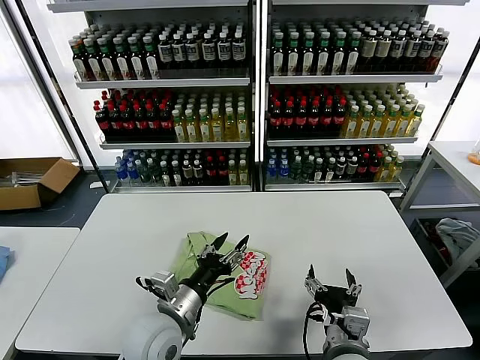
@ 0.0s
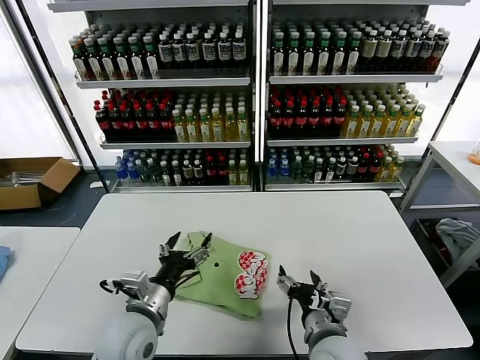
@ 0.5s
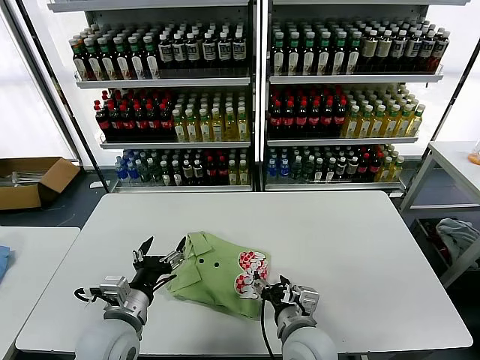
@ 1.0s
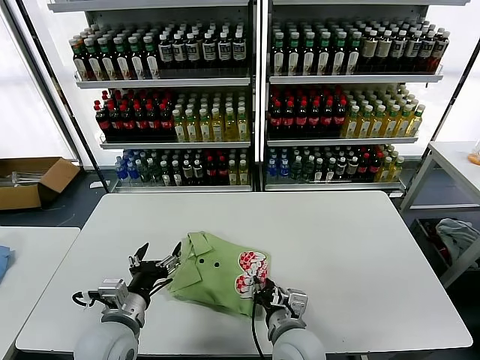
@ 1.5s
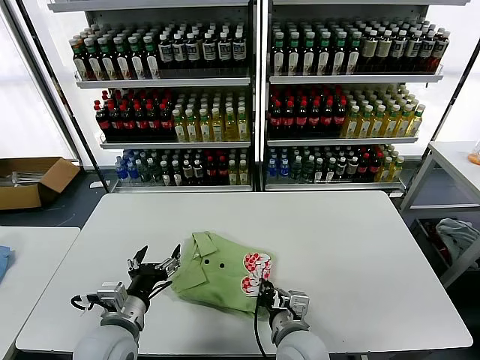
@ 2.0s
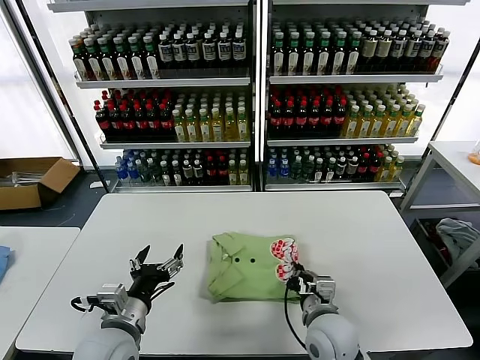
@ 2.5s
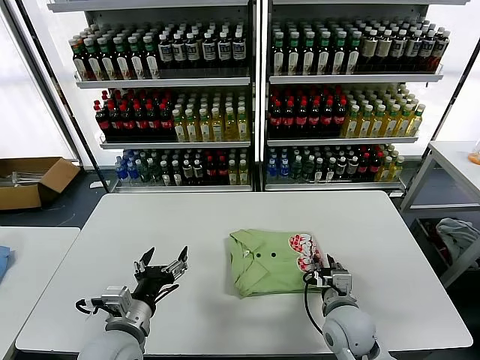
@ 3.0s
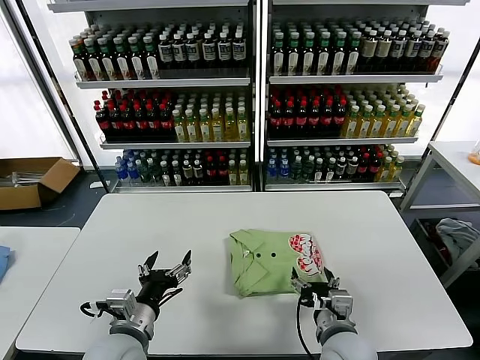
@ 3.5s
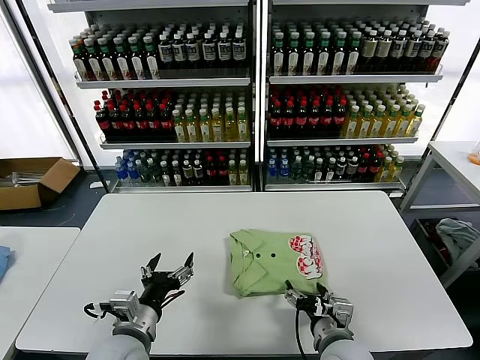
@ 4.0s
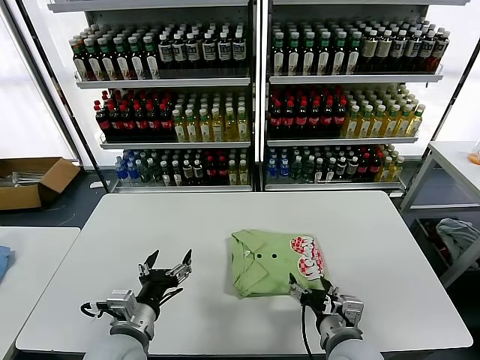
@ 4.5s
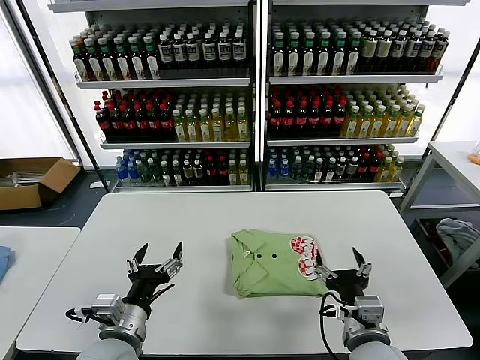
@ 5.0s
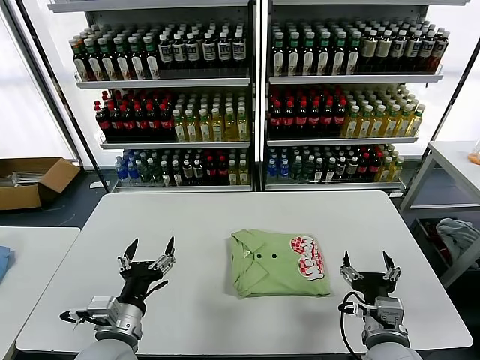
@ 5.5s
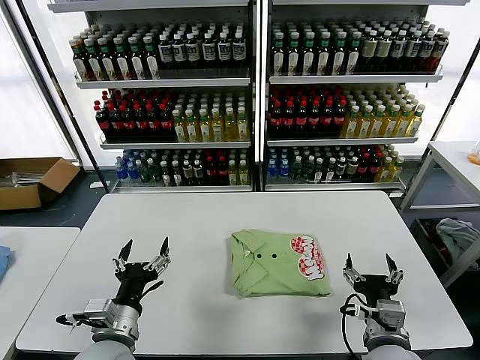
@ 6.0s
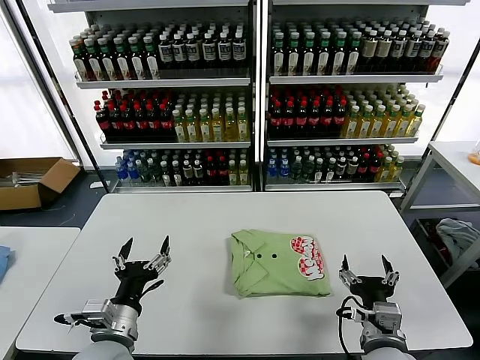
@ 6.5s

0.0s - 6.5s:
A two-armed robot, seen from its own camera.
Task of the whole recording: fold and organize the clothes.
Step, 0.5s - 4.0s: Drag the clothes to the center of the table.
0.0s - 2.0s: The left gripper is displaced to the left by roughly 10 cm, and opens up. The right gripper moves to the left and forward, about 10 cm, and closes.
2.0s - 4.5s: The right gripper goes roughly 10 cm to the right, and opens its fingers.
4.5s - 6.5s: The right gripper moves to the right, approximately 5 cm.

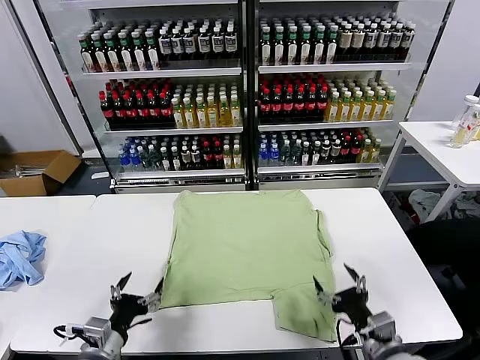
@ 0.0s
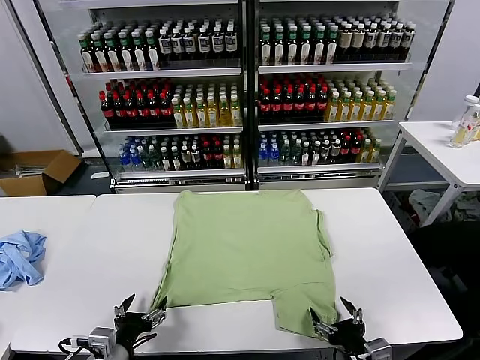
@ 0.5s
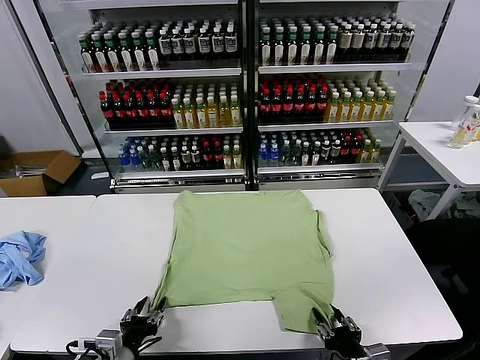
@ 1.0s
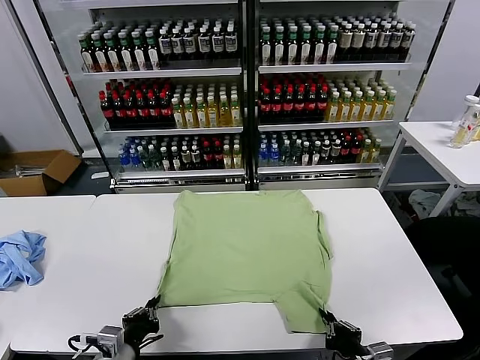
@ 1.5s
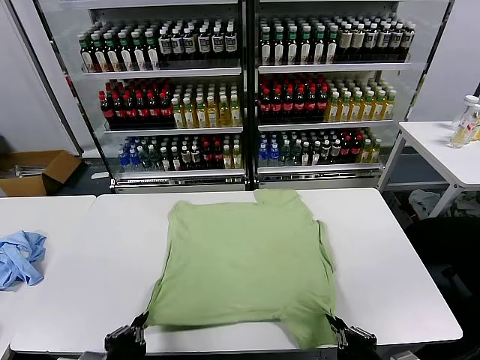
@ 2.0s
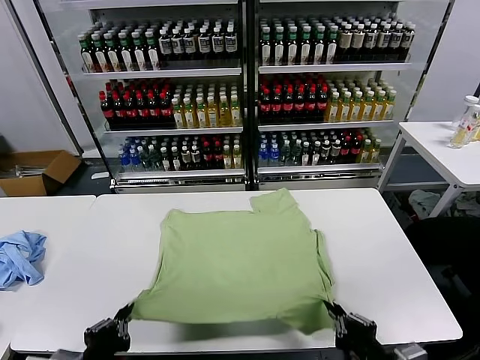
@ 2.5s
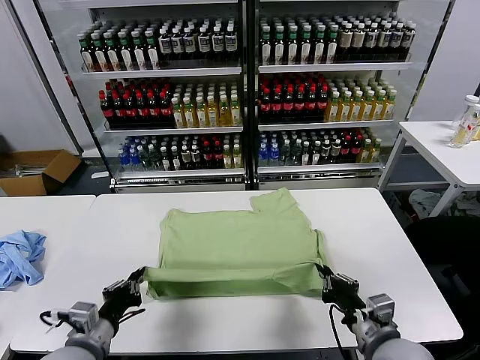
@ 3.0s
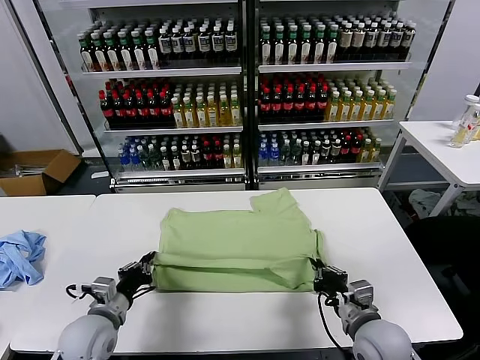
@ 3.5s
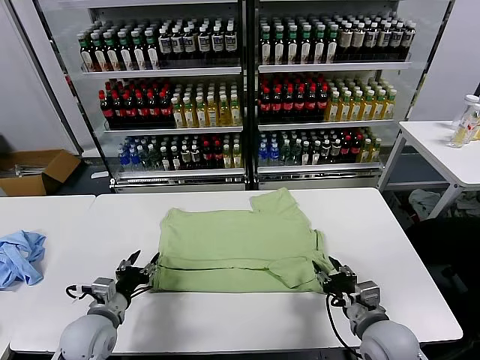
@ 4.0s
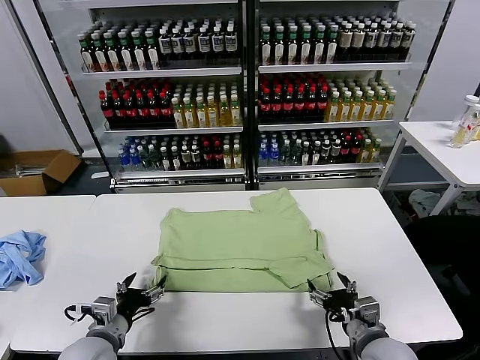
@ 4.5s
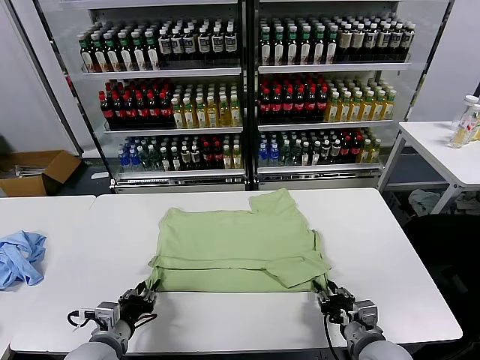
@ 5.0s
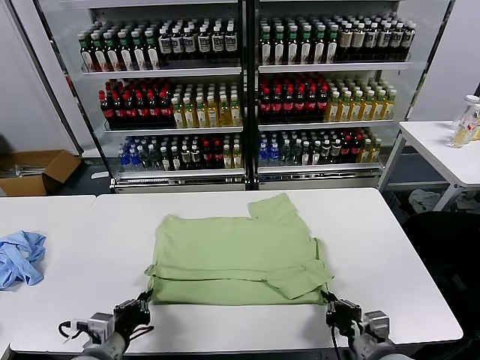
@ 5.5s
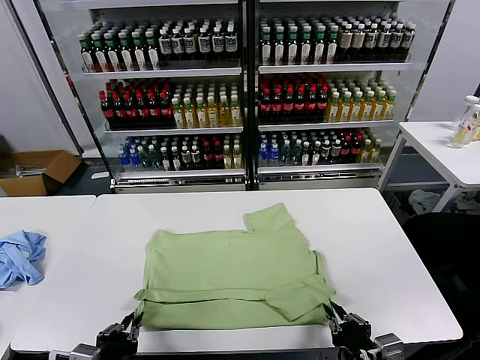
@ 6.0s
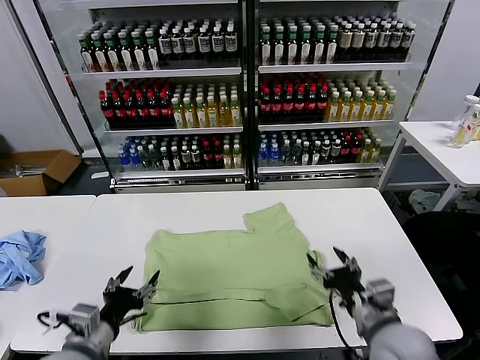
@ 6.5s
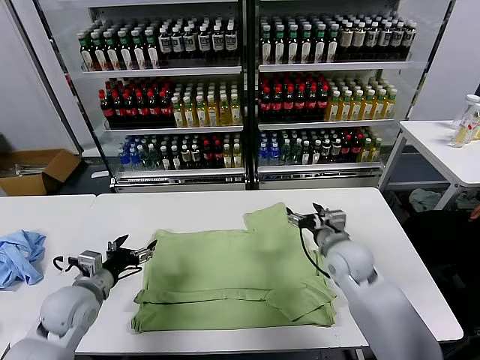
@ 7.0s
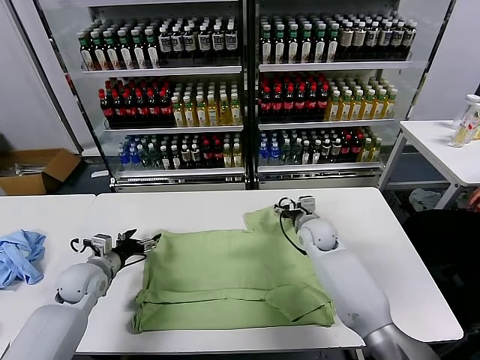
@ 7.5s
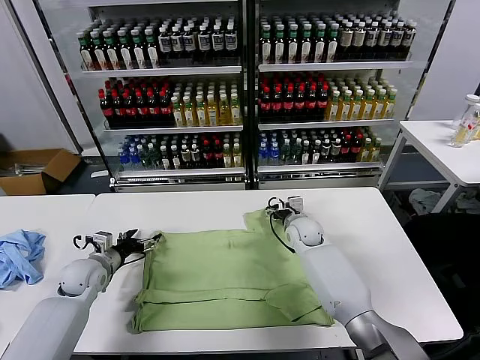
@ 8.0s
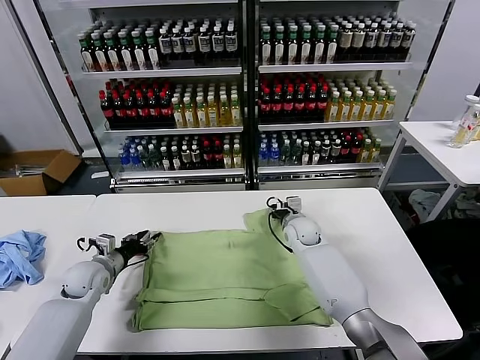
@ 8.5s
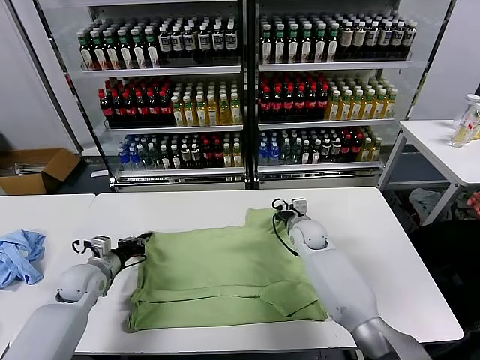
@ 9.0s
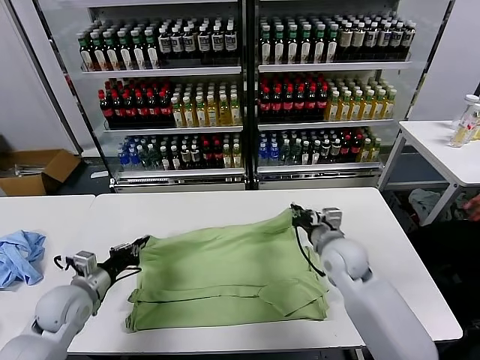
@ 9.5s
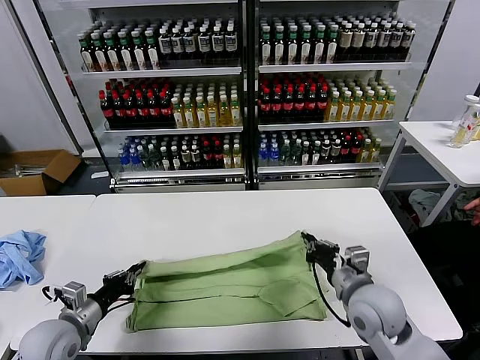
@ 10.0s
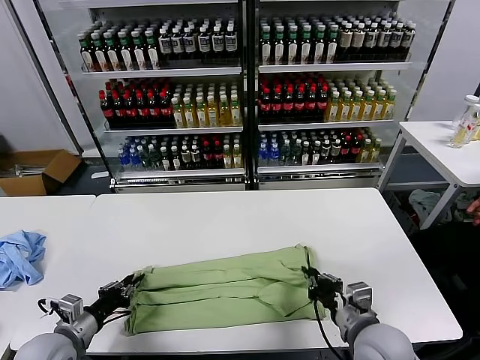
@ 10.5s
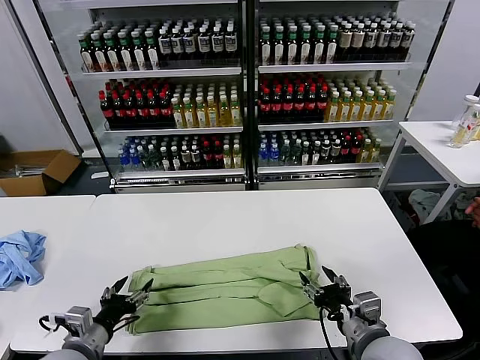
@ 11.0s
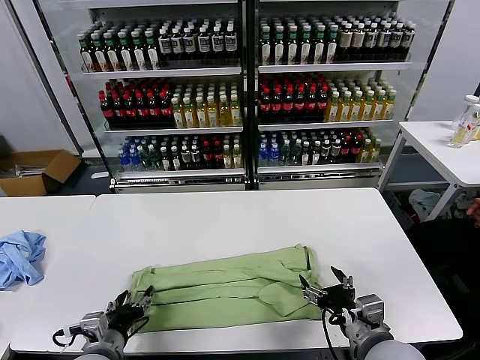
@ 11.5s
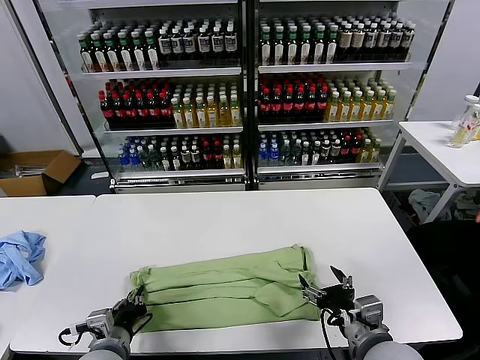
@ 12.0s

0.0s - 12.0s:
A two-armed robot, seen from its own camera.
Task of the whole recording: fold and organize the clothes.
Step, 0.0s - 1.5s: use both grippers simultaneously to clamp the lower edge of the clothing fabric.
Step, 2.0s - 4.0s: use both grippers to drag the lower edge of the fabric forward and fold it over the upper edge.
Step, 4.5s - 6.0s: Drag the clothes downward with both gripper.
Step, 6.5s - 8.5s: use both grippers simultaneously to clamp the upper edge of the clothing fabric.
Step, 9.0s - 10.5s: use both grippers to drag the upper edge of the fabric backward and fold it over the lower edge.
Step, 11.0s - 12.0s: use the left gripper to clamp the left edge of the fabric.
2.0s - 4.0s: The grippers both shift forward by approximately 15 cm. The left gripper opens, while the right gripper opens up.
4.0s - 6.0s: The grippers both shift backward by approximately 10 cm. The right gripper closes its fingers. The left gripper closes.
6.0s - 8.0s: The grippers both shift forward by approximately 35 cm. The left gripper opens up; the right gripper opens its fingers.
8.0s - 10.0s: The right gripper shifts roughly 25 cm backward, and closes its fingers, while the left gripper heads backward, covering roughly 15 cm, and closes its fingers.
10.0s - 12.0s: The left gripper shifts about 10 cm to the right, and opens and closes again; the right gripper travels backward by roughly 10 cm, and opens up.

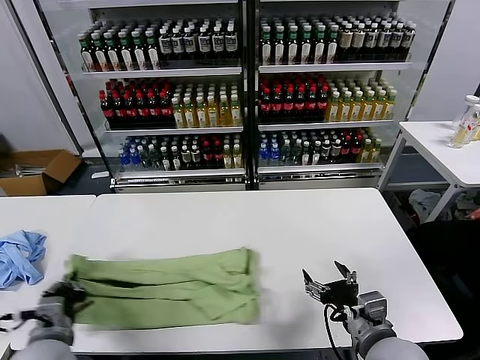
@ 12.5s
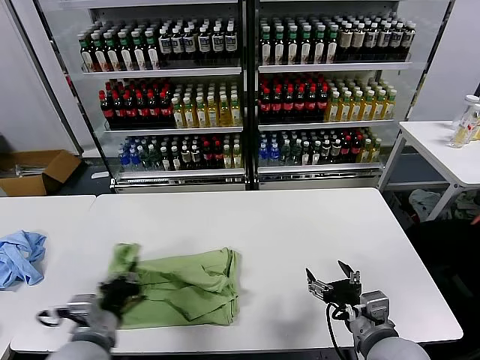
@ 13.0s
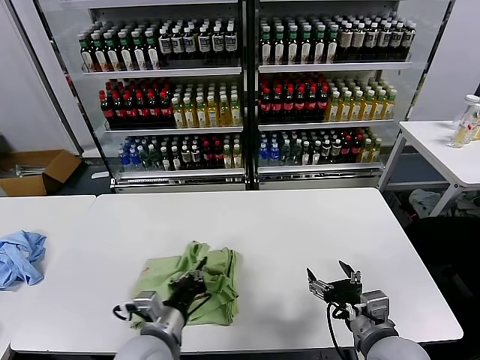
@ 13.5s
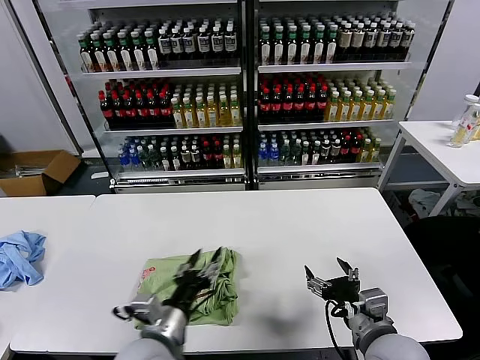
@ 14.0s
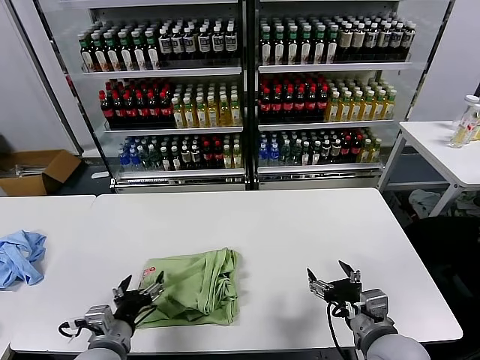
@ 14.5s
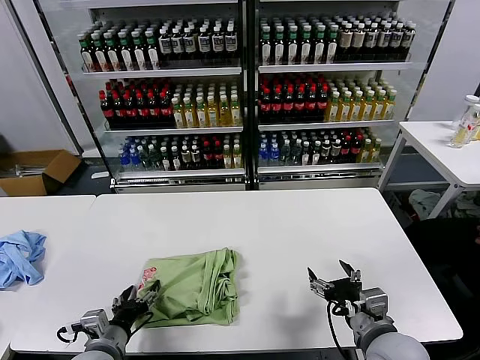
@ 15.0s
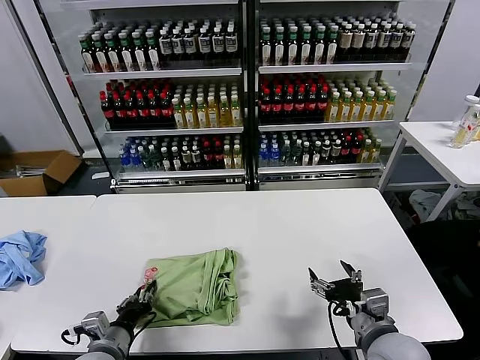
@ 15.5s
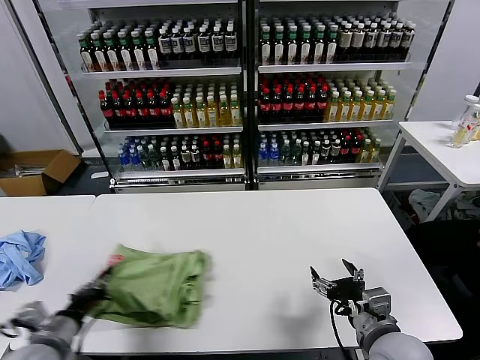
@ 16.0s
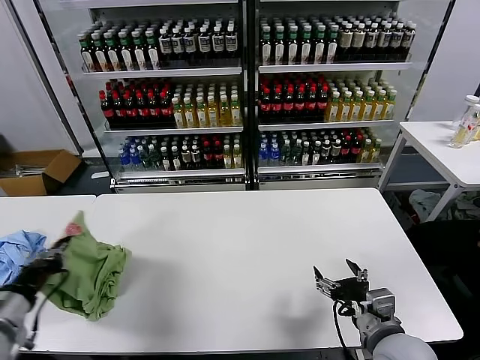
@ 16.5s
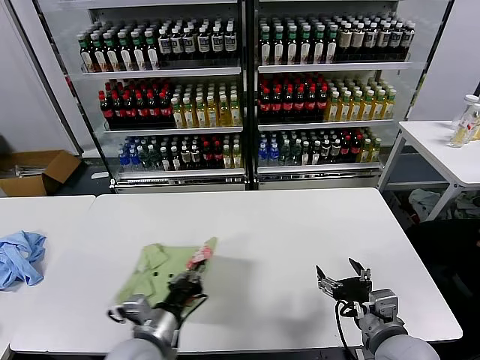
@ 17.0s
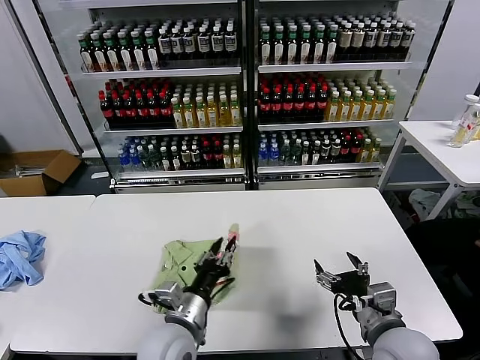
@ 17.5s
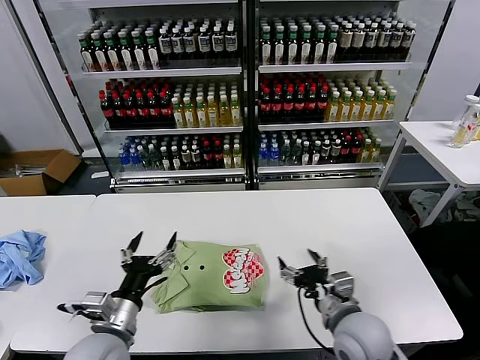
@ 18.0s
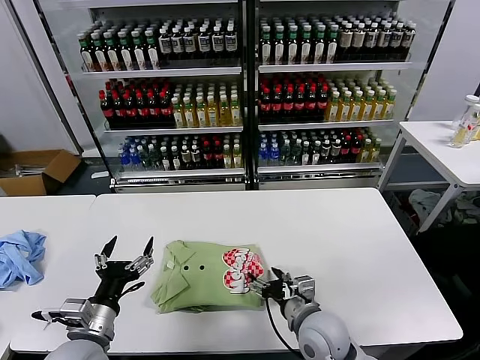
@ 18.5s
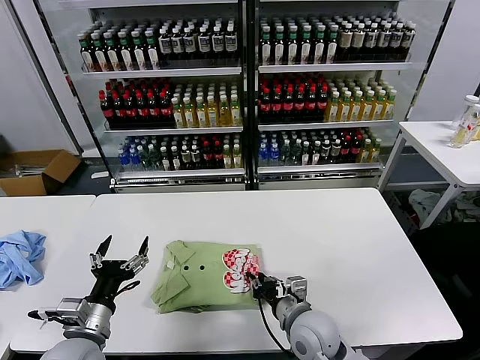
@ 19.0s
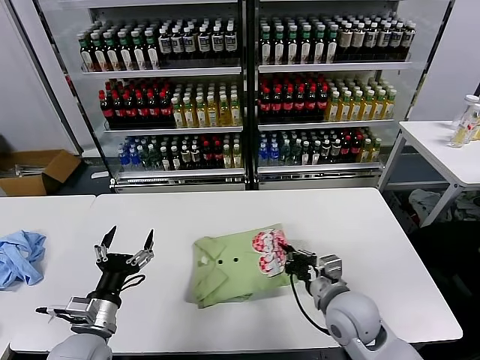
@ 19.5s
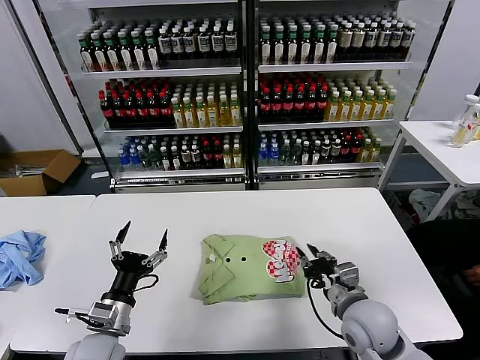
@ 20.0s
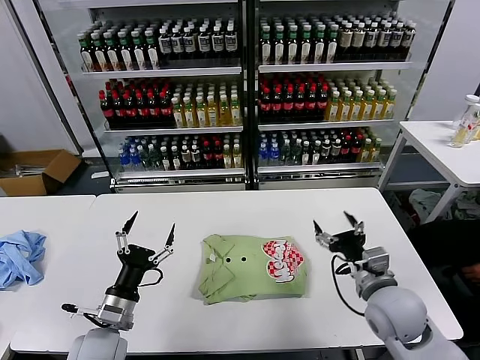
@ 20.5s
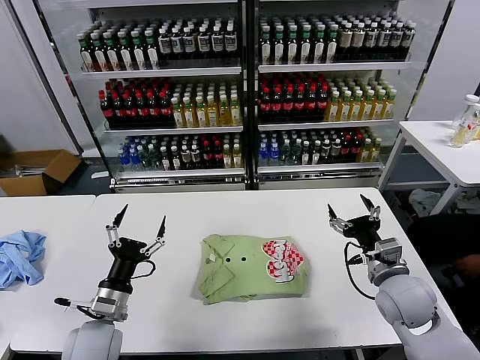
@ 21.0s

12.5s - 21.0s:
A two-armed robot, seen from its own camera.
Task of the whole recording: fold and organize the clothes.
Step, 12.5s - 13.5s: use the left gripper to drag the left edge of the fabric to the left and folds it over the right edge.
Step, 14.0s - 17.5s: Flip the folded clothes over with left gripper.
Step, 18.0s - 20.0s: Drag the clothes to the center of the table.
12.5s - 14.5s: The left gripper shifts roughly 10 cm to the right, and opens up.
14.5s - 16.5s: The left gripper goes approximately 20 cm to the left and upward, and closes its fingers.
16.5s - 19.0s: The left gripper is displaced to the right and downward by some 15 cm, and opens its fingers. Meanwhile the right gripper is displaced to the left, downward and forward by about 15 cm, and closes its fingers.
19.0s - 21.0s: The right gripper travels to the right and upward by about 20 cm, and opens. Meanwhile the left gripper shifts by some 5 cm.
